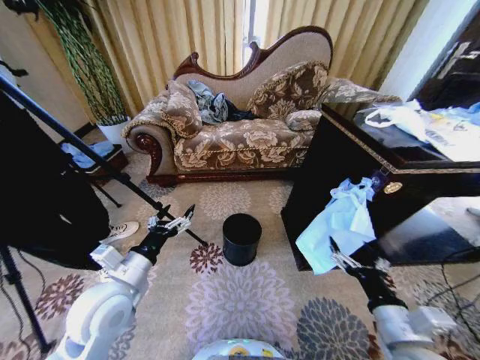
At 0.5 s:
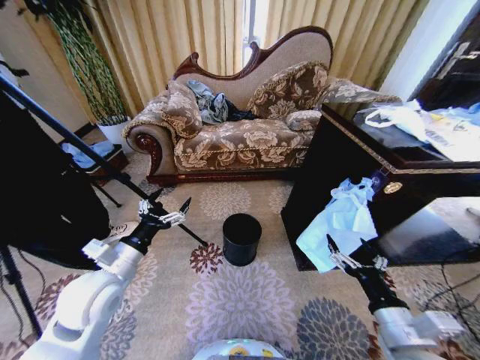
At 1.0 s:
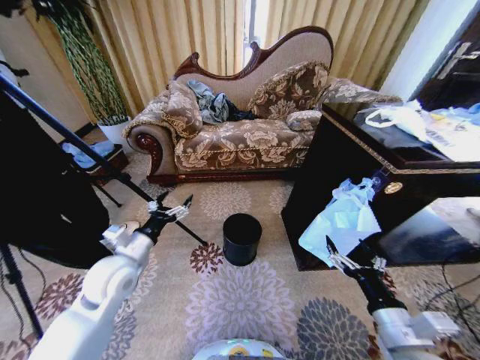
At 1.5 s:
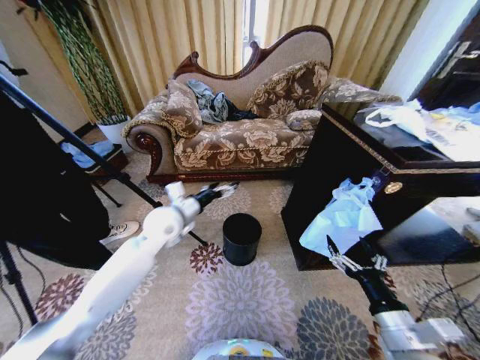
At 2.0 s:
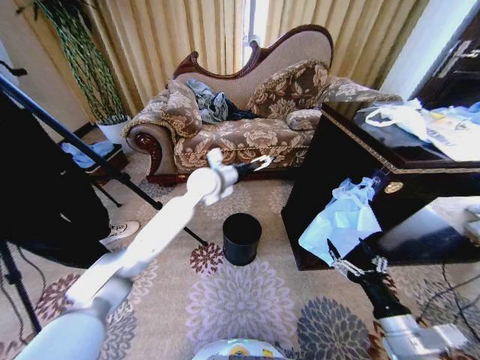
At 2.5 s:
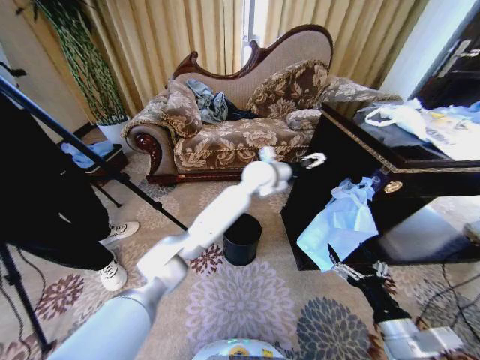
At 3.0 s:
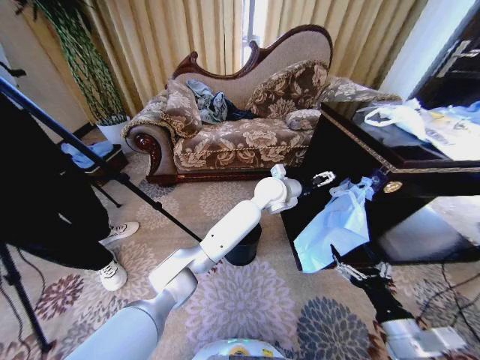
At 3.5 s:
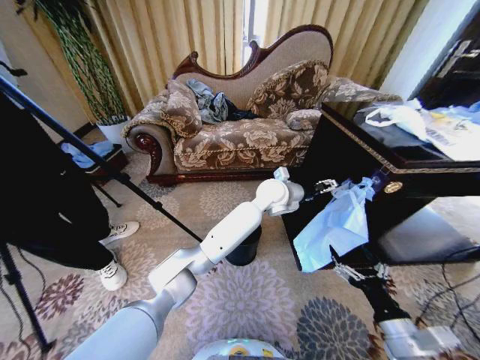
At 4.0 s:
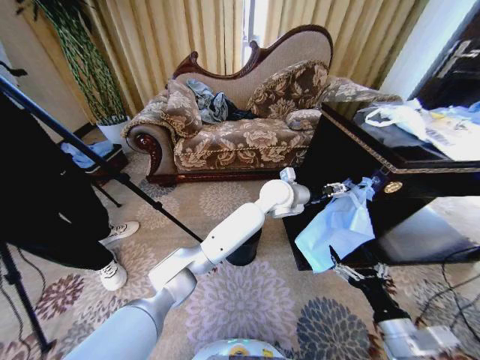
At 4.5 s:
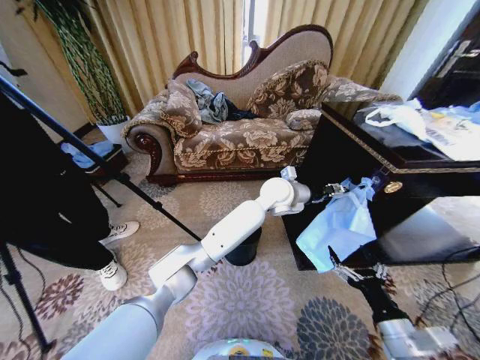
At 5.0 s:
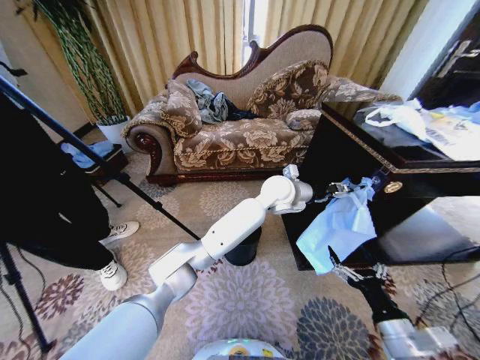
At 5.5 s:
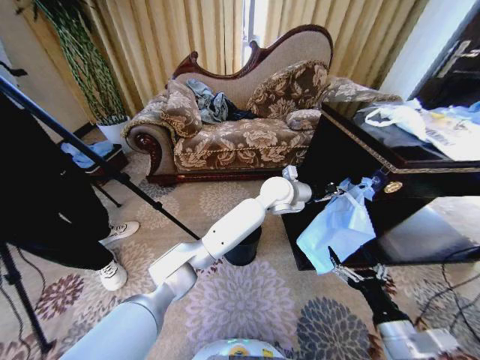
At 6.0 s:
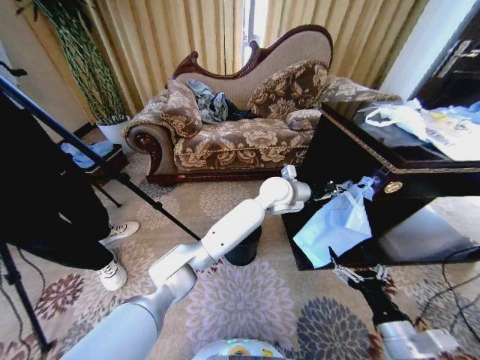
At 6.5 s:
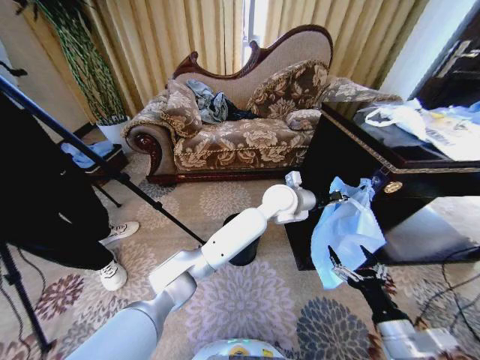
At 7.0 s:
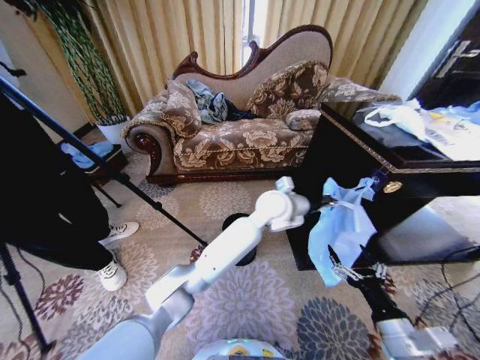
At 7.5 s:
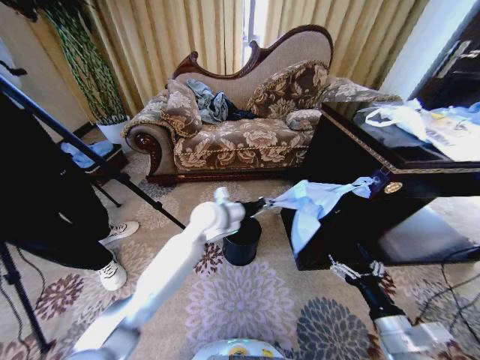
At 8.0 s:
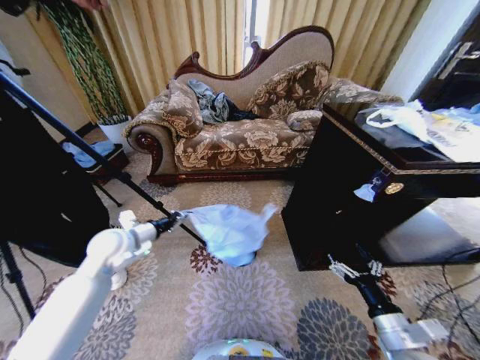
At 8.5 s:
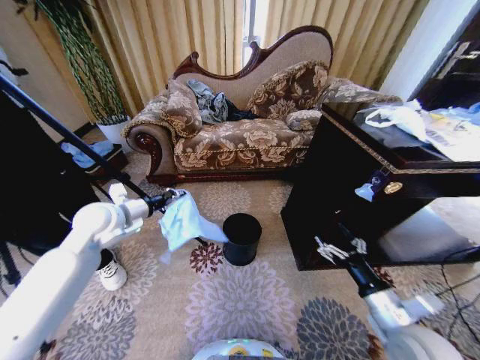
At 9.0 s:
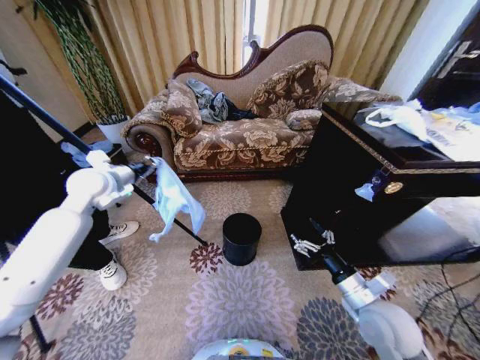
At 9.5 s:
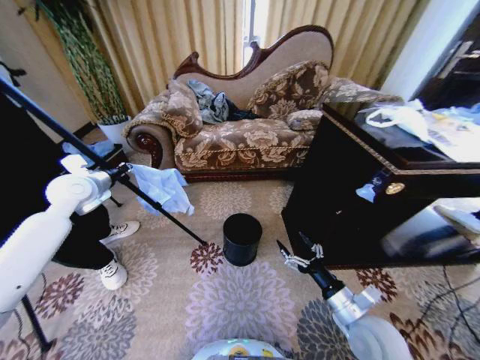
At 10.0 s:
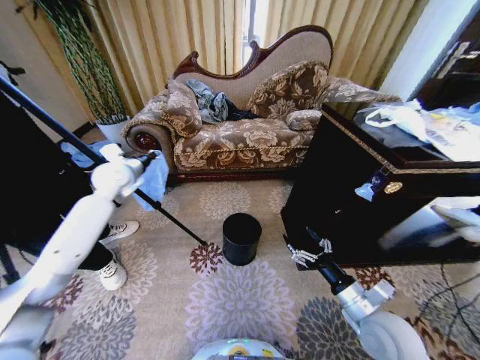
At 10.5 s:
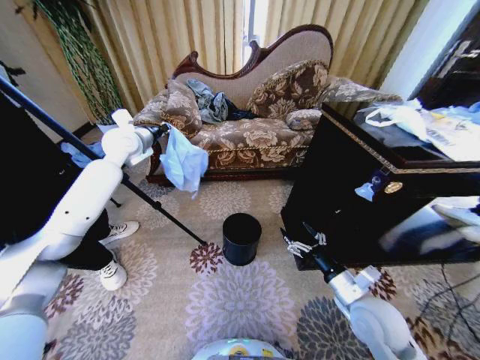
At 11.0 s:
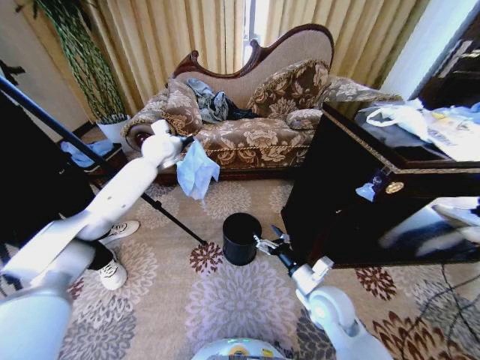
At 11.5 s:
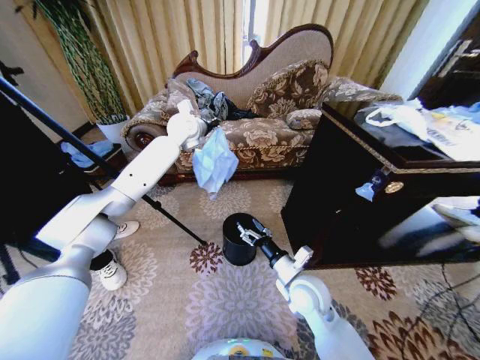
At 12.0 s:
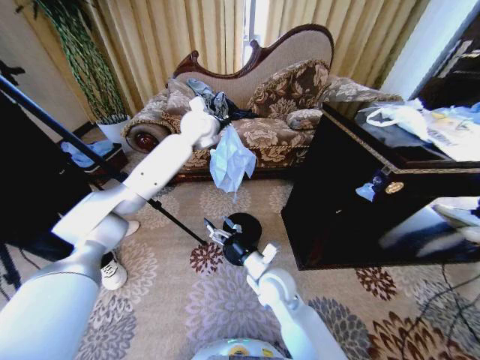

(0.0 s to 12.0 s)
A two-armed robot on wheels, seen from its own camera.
Task of the whole recording: Place a garbage bag over the trash bin.
2.0 s - 4.0 s: The left gripper shifts about 20 cm to the right.
4.0 s - 6.0 s: The left gripper closes.
6.0 s - 8.0 s: The left gripper goes some 40 cm to the left.
8.0 s - 10.0 s: The left gripper goes approximately 20 cm forward and upward, while the right gripper moves forward, some 5 cm.
10.0 s - 12.0 s: The left gripper travels to the right, upward and forward by roughly 25 cm, while the right gripper heads to the left and forward, covering about 25 cm.

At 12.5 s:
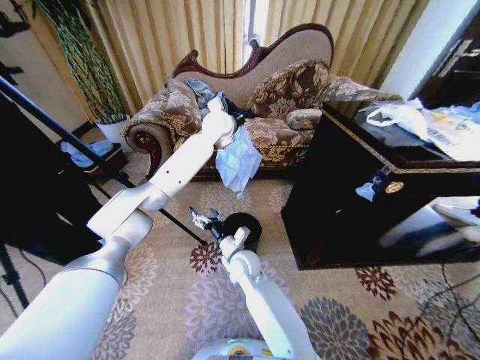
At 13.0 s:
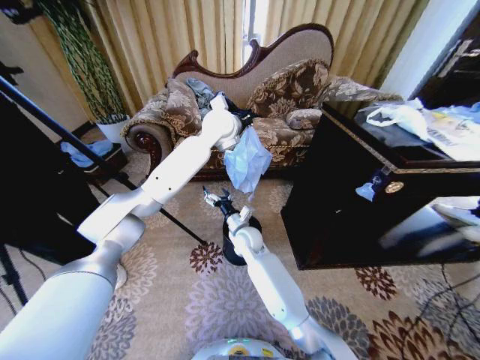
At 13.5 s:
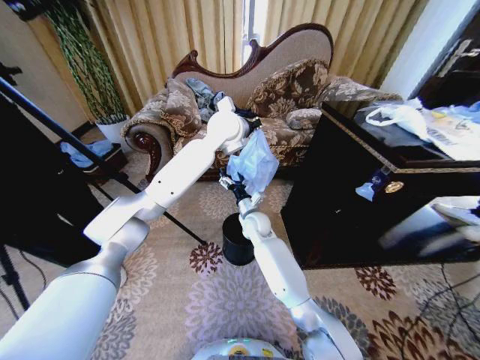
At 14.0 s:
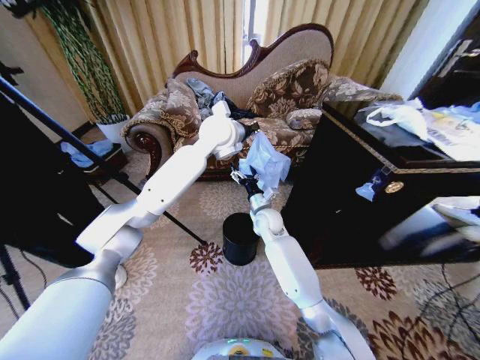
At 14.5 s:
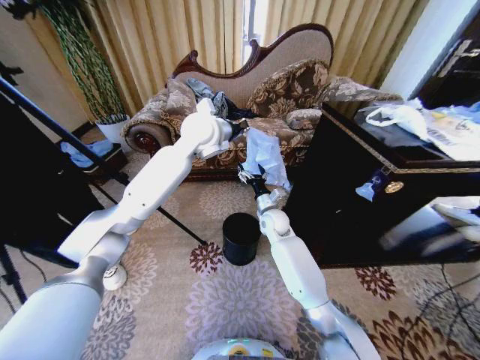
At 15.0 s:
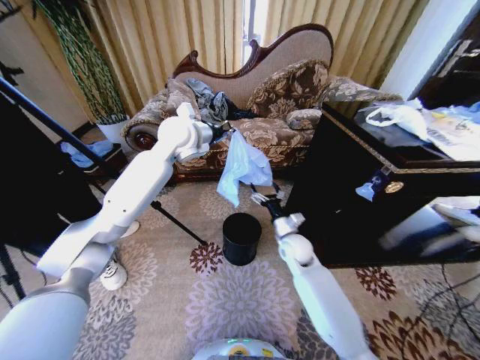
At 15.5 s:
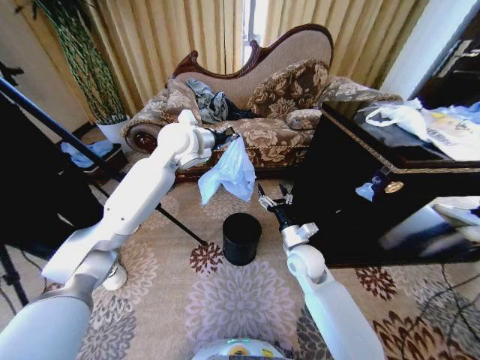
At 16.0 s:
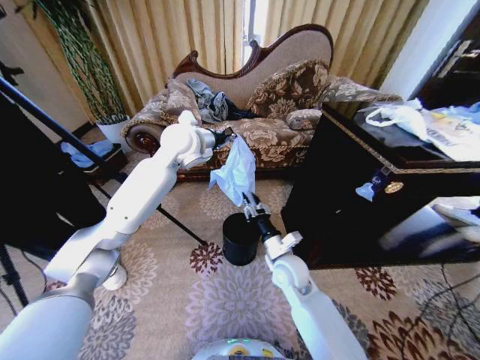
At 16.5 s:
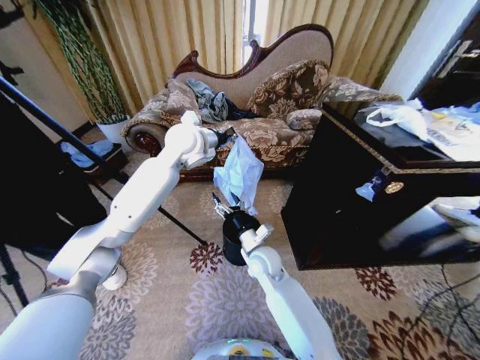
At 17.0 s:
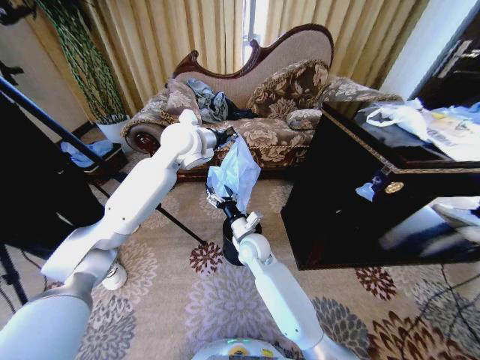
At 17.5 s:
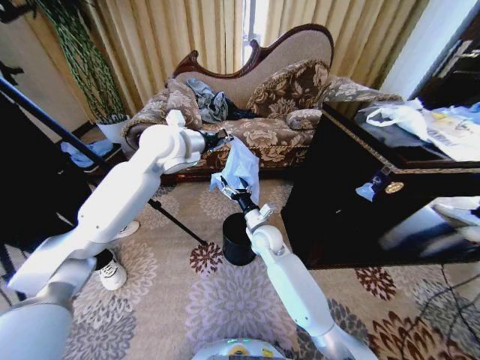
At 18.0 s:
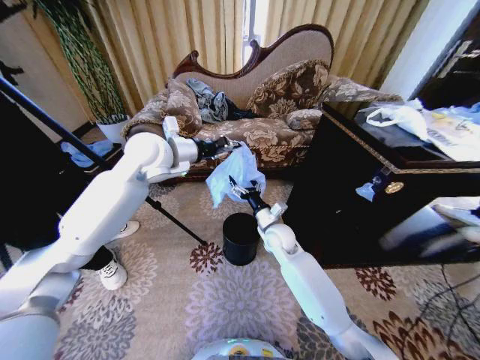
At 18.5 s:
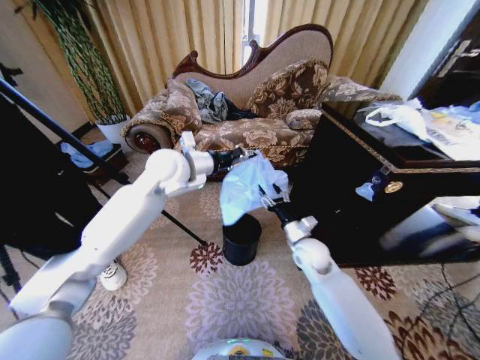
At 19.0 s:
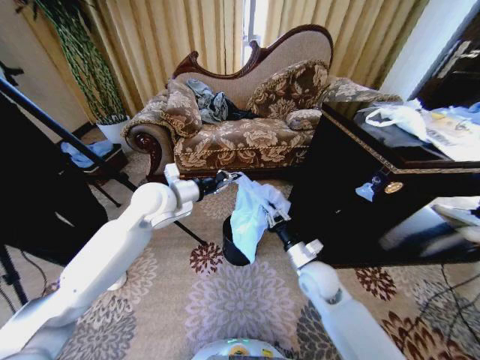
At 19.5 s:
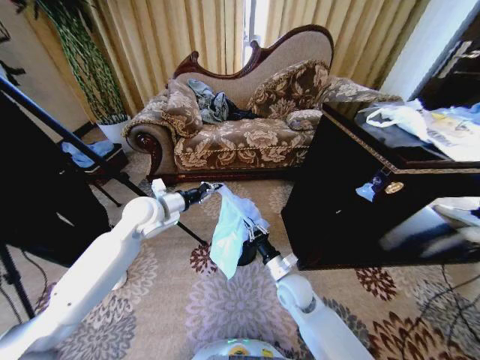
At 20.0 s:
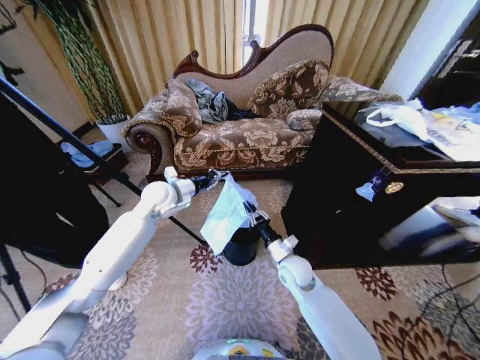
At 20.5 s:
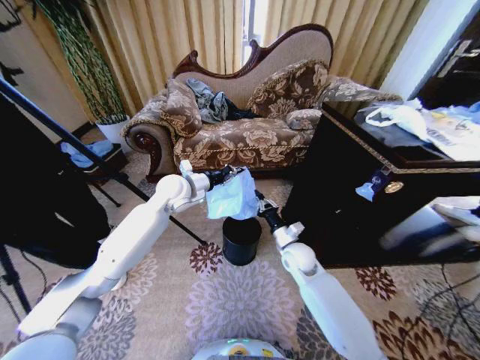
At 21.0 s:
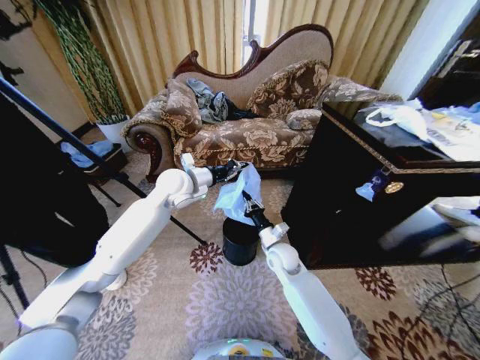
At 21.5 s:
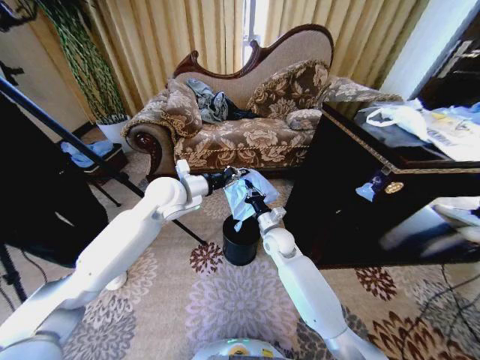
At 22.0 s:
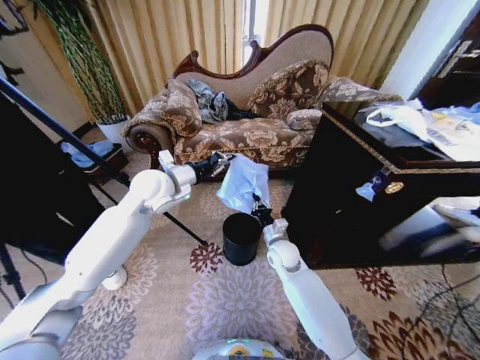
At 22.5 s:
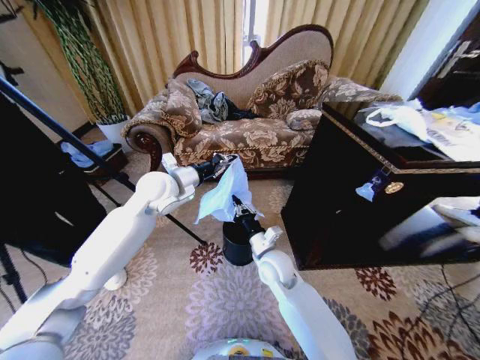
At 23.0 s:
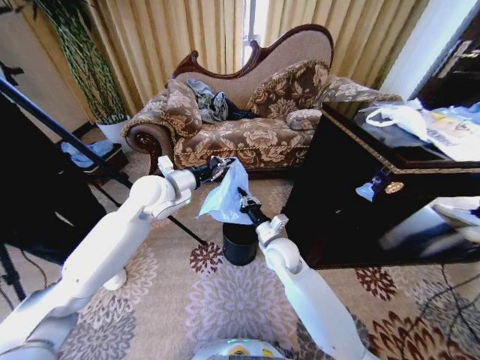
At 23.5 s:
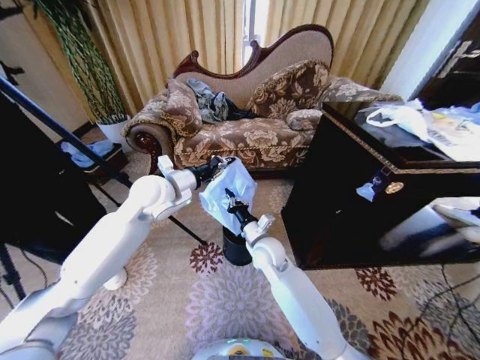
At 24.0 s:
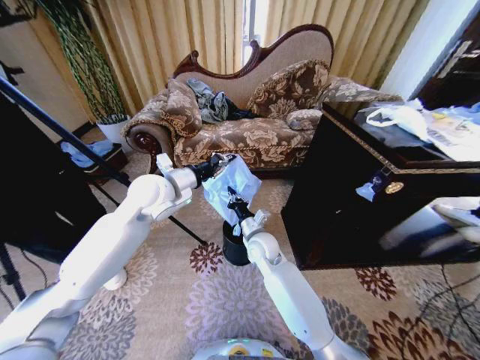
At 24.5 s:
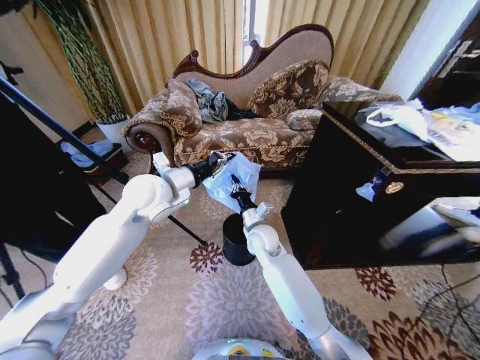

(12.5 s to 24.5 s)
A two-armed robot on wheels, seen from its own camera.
Task of the whole recording: Place a garbage bag over the trash bin.
12.5 s - 14.5 s: The right gripper goes roughly 20 cm forward, to the right and upward; the left gripper travels backward by about 10 cm.
14.5 s - 16.5 s: The right gripper shifts about 15 cm backward, and closes and opens again.
16.5 s - 18.5 s: The right gripper is displaced to the right by some 15 cm, while the left gripper heads backward, covering some 5 cm.
18.5 s - 20.5 s: The left gripper is displaced downward by approximately 10 cm; the right gripper travels backward and back again, about 10 cm each way, and closes up.
20.5 s - 22.5 s: The left gripper changes place by approximately 5 cm; the right gripper moves to the left, roughly 10 cm.
22.5 s - 24.5 s: The right gripper travels forward by roughly 5 cm.

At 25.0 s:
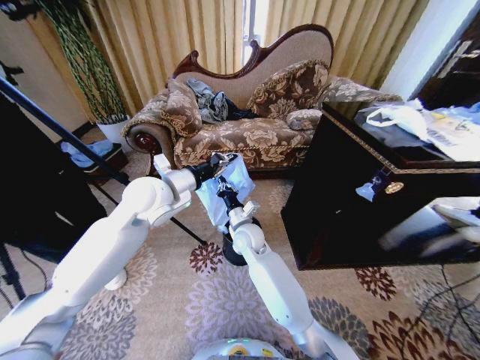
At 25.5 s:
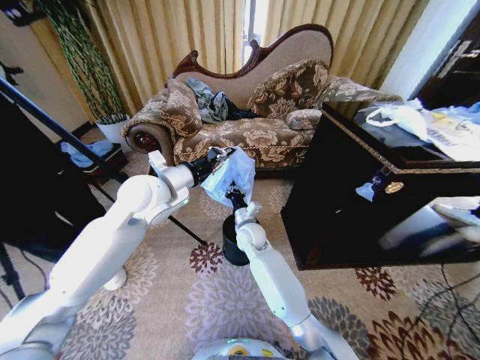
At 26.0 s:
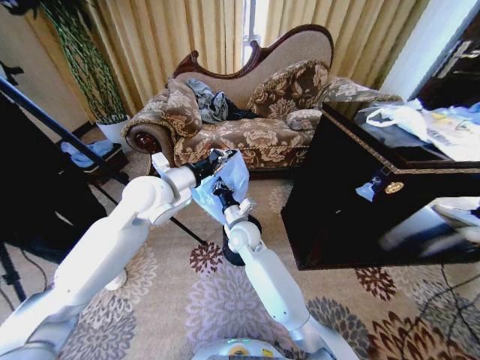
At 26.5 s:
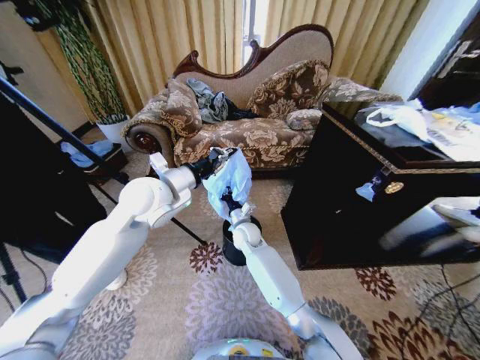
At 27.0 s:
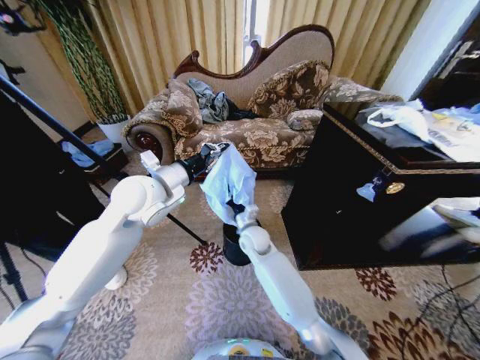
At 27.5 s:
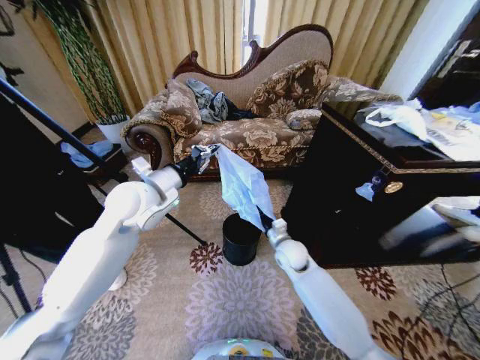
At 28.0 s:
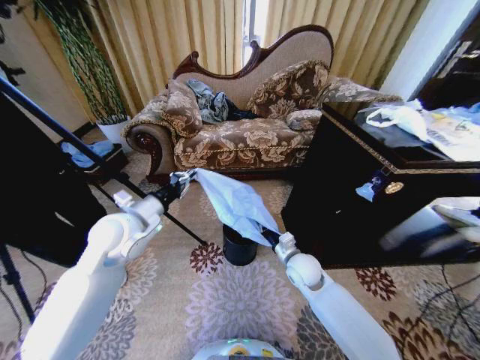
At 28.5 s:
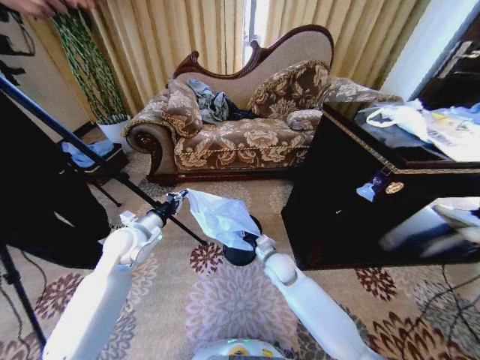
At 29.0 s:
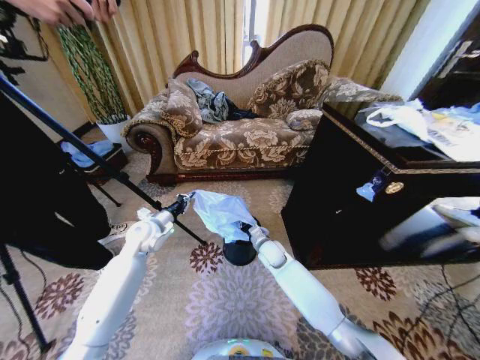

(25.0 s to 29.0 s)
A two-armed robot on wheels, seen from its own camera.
Task of the whole recording: Place a garbage bag over the trash bin.
27.0 s - 29.0 s: The right gripper shifts approximately 10 cm downward and to the right. The left gripper is displaced downward and to the left by about 20 cm.
